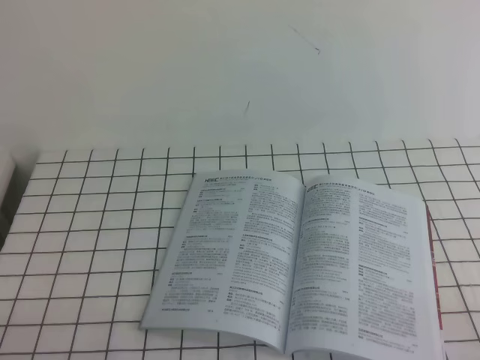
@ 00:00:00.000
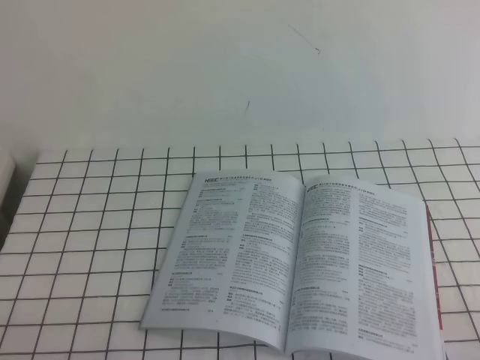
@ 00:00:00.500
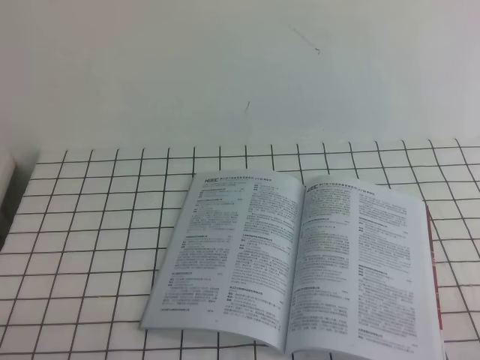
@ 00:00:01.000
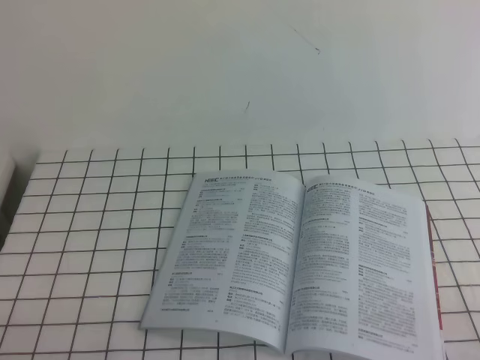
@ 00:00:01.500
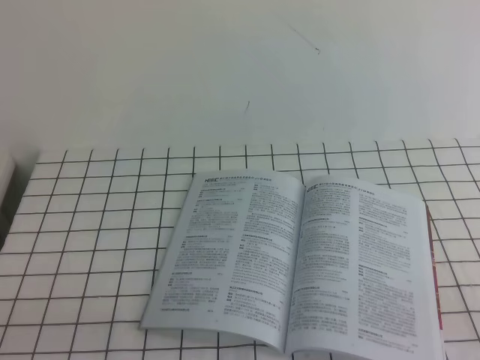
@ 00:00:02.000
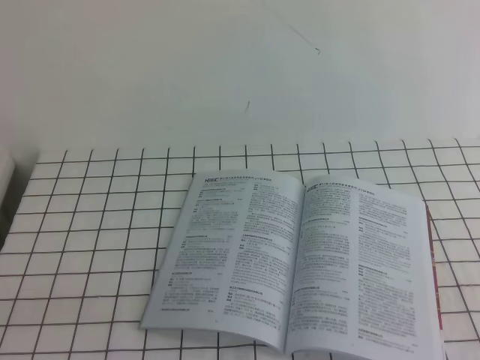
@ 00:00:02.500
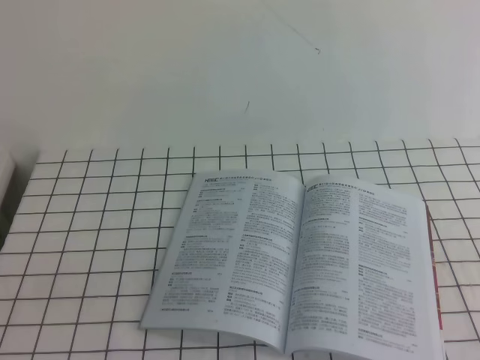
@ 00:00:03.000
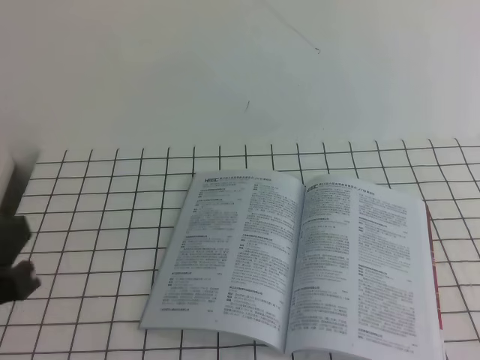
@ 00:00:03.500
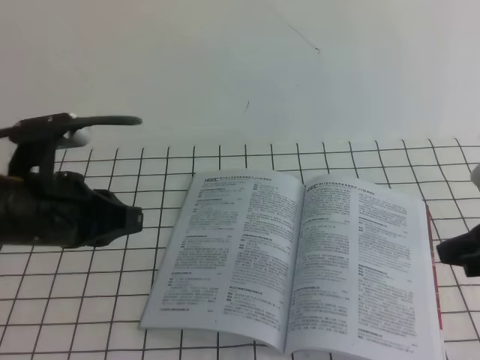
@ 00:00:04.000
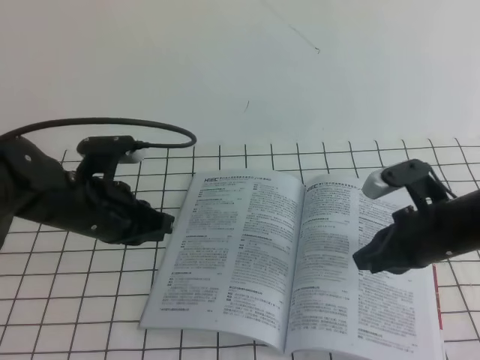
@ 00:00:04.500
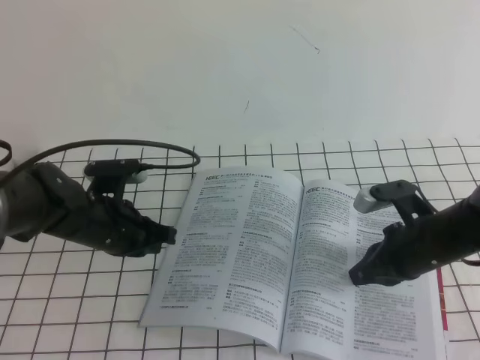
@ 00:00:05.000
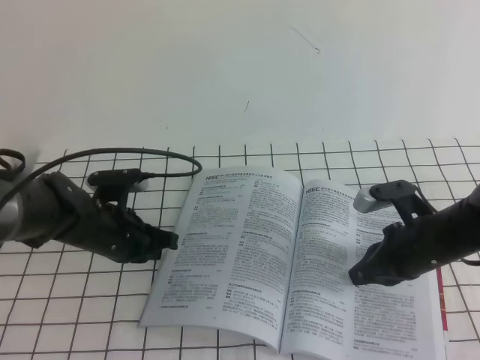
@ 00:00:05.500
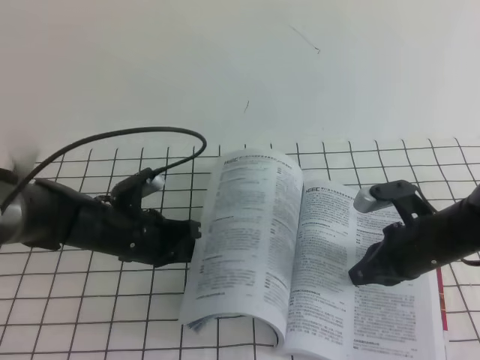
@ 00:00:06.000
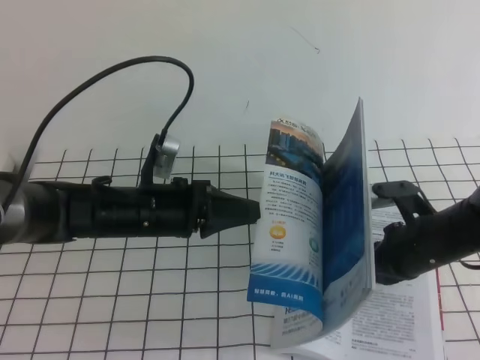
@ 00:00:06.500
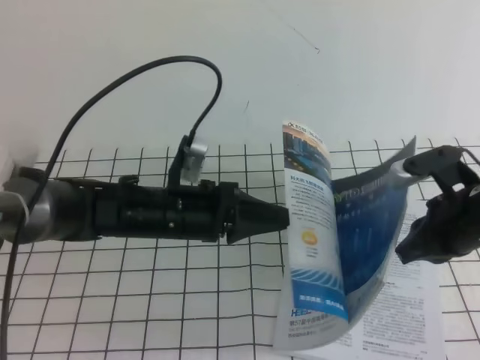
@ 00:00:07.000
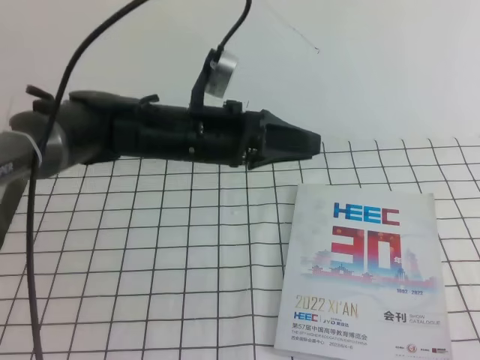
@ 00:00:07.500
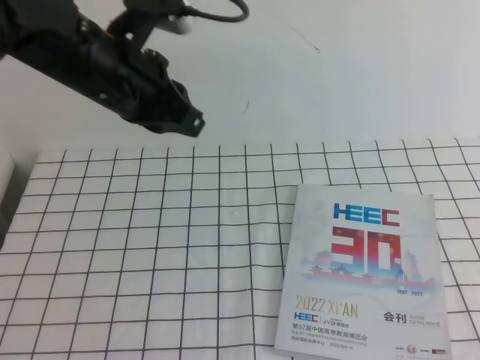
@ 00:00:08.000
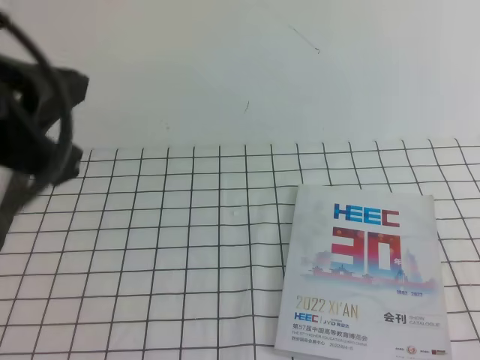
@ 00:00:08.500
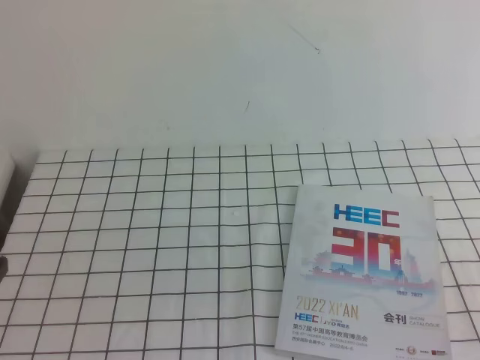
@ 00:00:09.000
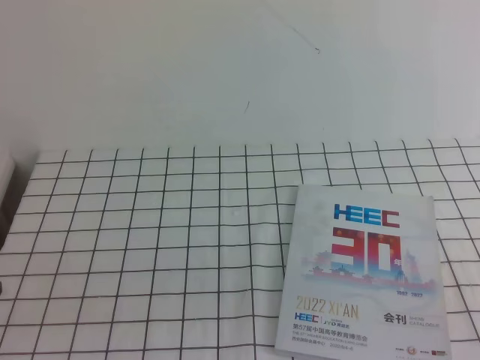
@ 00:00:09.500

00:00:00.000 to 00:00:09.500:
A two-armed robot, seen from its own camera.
Task of the whole recording: on the white tablecloth, hold the book with one hand and close it with the other.
00:00:02.000 to 00:00:04.000: Both grippers move forward and upward, about 20 cm.
00:00:04.000 to 00:00:05.500: The left gripper is displaced downward and forward by approximately 20 cm; the right gripper goes about 20 cm downward, forward and to the left.
00:00:05.500 to 00:00:07.500: The left gripper goes some 15 cm to the right and upward, and opens up. The right gripper shifts approximately 15 cm upward.
00:00:07.500 to 00:00:09.500: The left gripper shifts roughly 35 cm backward and to the left, and closes its fingers; the right gripper is displaced backward by some 25 cm.

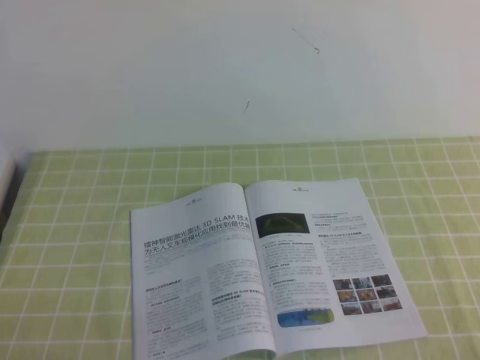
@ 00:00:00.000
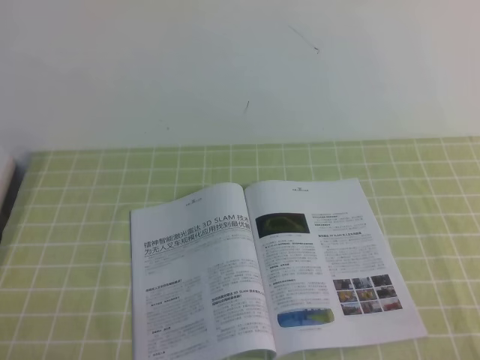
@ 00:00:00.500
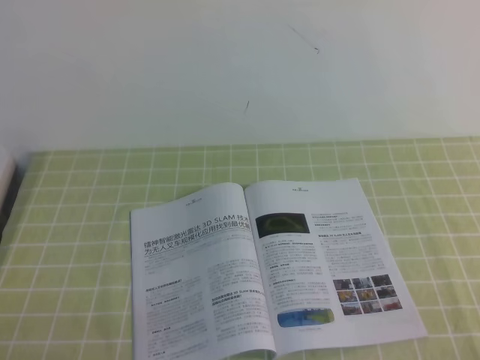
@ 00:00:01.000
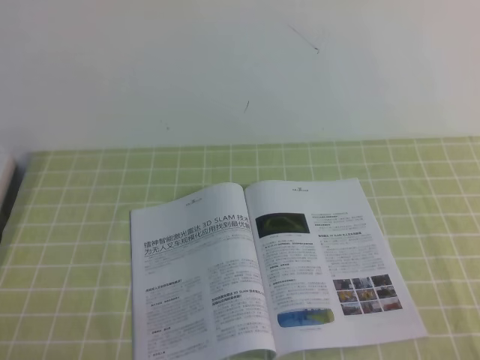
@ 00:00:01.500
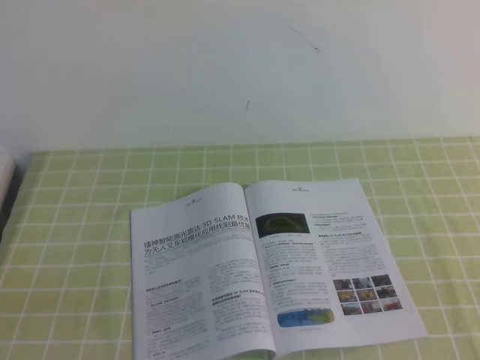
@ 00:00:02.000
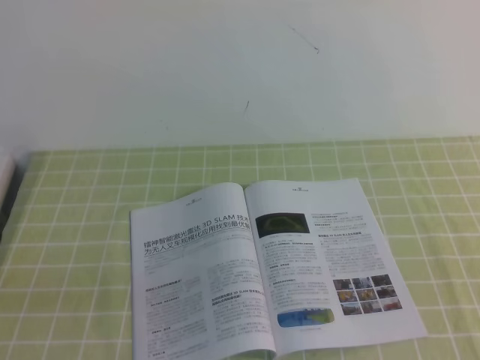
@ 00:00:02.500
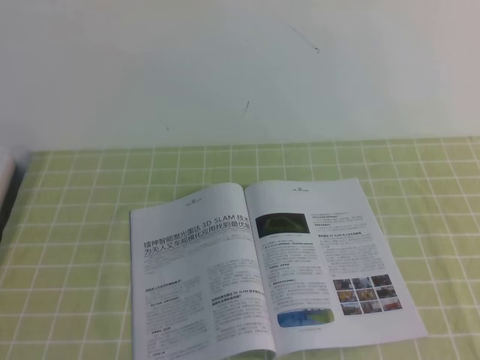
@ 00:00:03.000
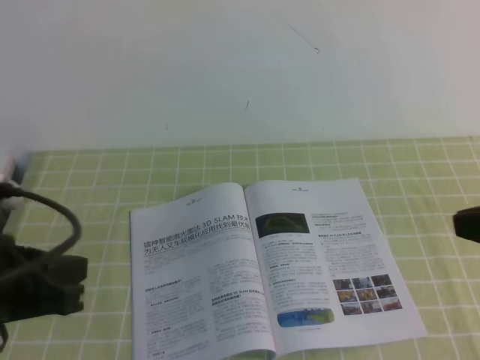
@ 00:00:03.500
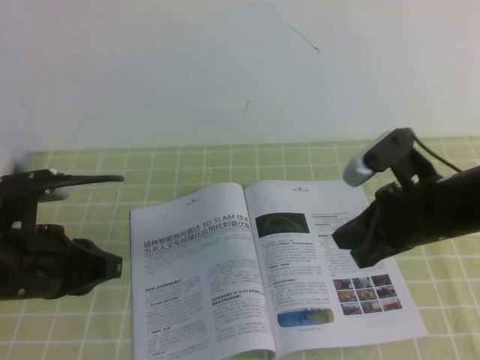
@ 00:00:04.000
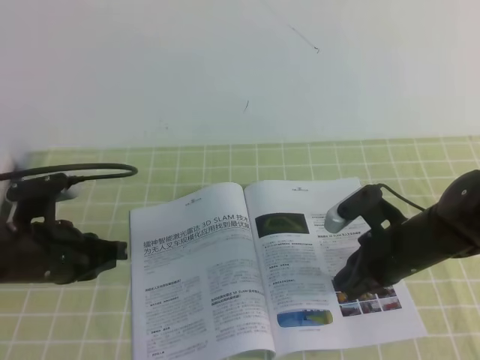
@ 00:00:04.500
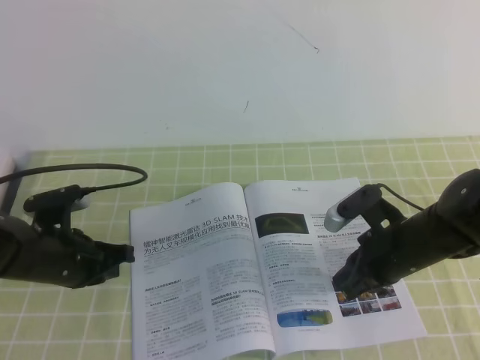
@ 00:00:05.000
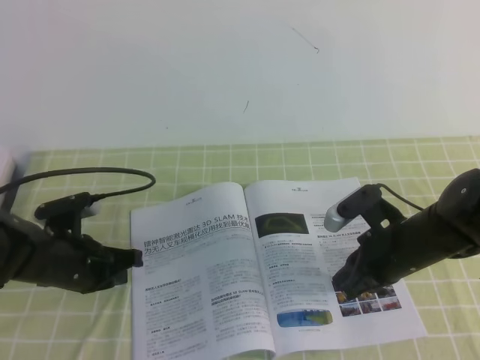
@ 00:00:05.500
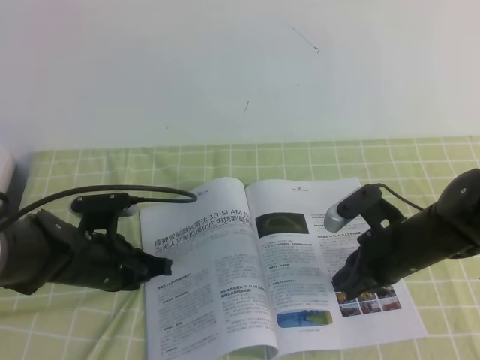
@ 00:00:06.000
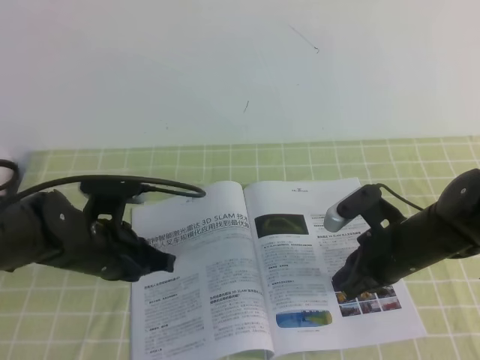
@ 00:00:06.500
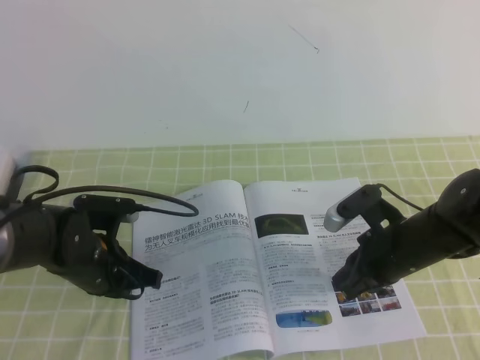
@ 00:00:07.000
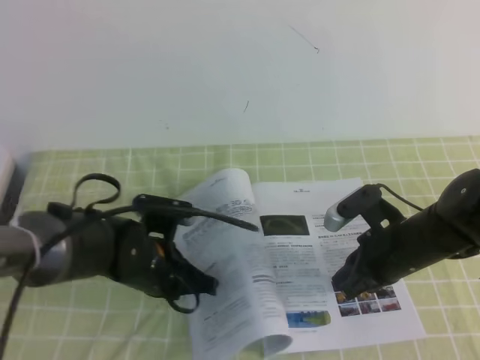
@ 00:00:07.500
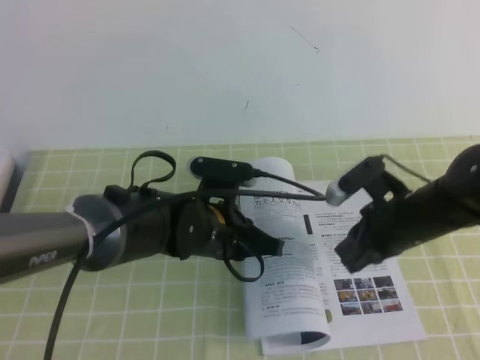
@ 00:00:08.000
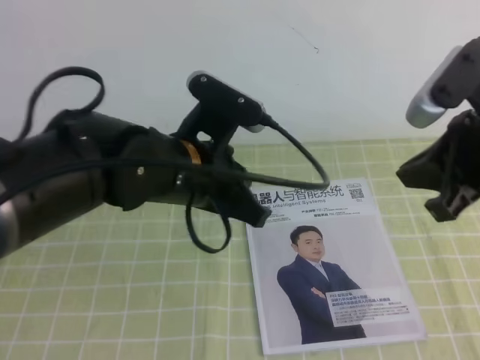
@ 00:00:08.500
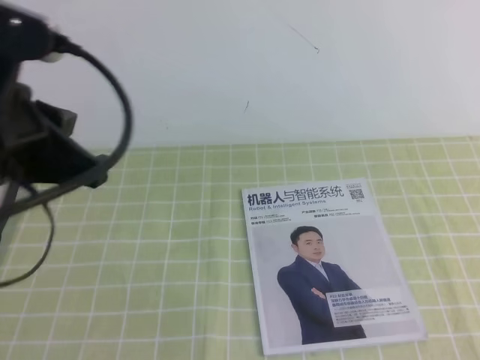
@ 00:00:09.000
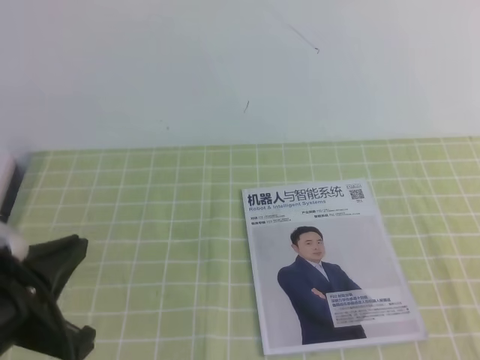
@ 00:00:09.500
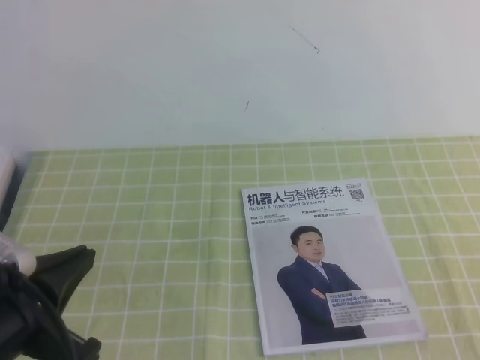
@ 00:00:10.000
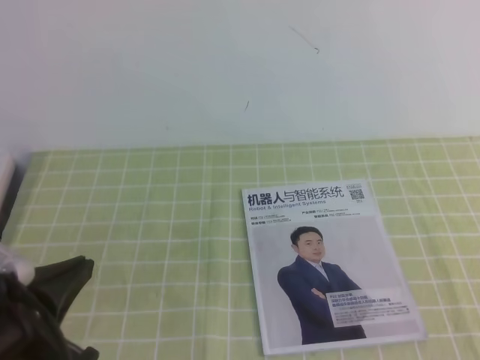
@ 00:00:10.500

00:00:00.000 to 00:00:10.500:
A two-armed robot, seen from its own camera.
Task of the whole recording: on the green tablecloth, hold the book with one hand and close it with the other.
00:00:02.000 to 00:00:04.000: The left gripper travels forward by roughly 15 cm. Meanwhile the right gripper goes about 25 cm forward and to the left.
00:00:04.000 to 00:00:06.500: The right gripper moves downward, some 10 cm, while the left gripper shifts roughly 10 cm downward and forward.
00:00:06.500 to 00:00:08.500: The right gripper moves upward, some 20 cm. Meanwhile the left gripper is displaced upward and to the right by approximately 15 cm.
00:00:08.500 to 00:00:10.500: The right gripper travels backward and to the right by roughly 25 cm. The left gripper moves backward and to the left, roughly 25 cm.
